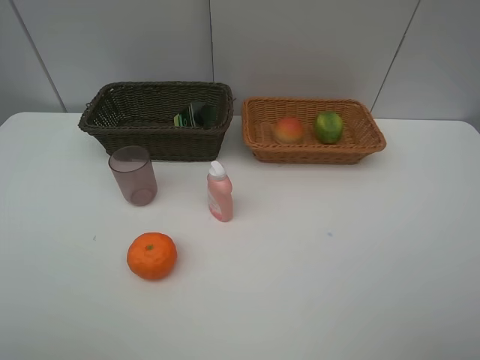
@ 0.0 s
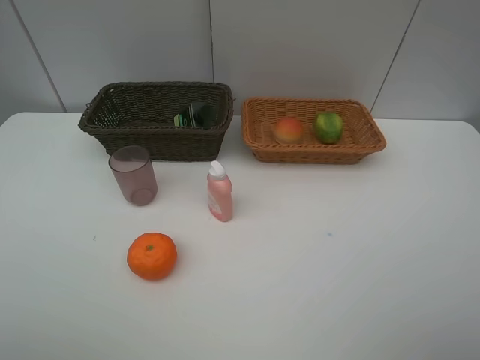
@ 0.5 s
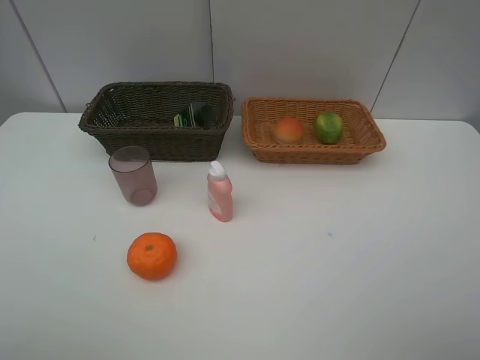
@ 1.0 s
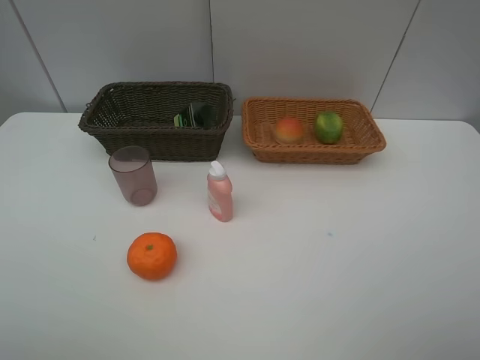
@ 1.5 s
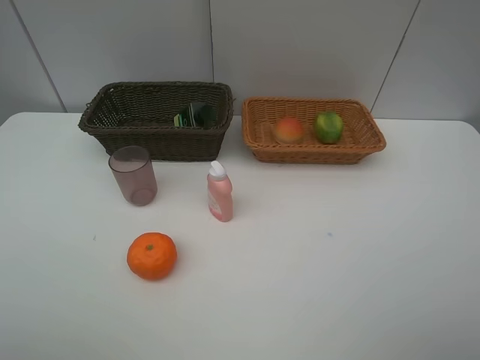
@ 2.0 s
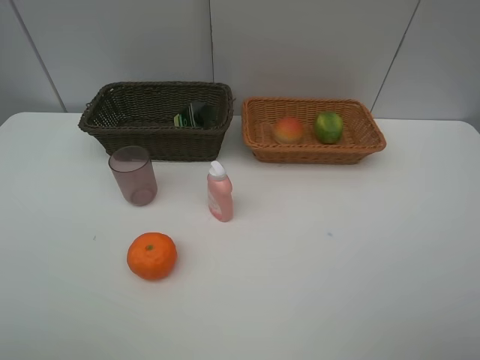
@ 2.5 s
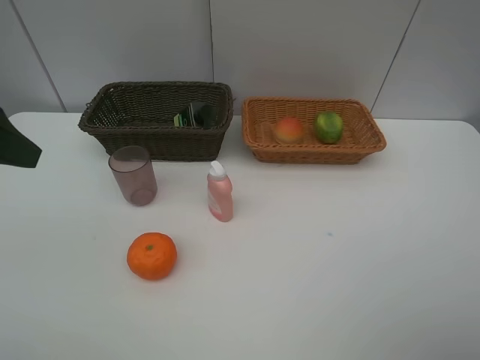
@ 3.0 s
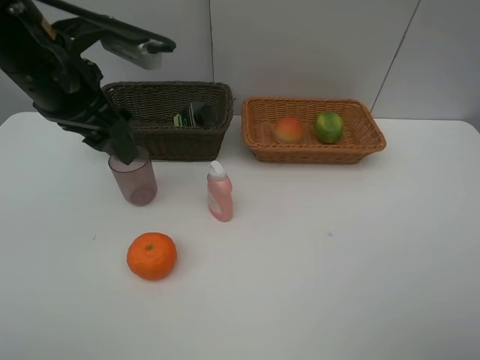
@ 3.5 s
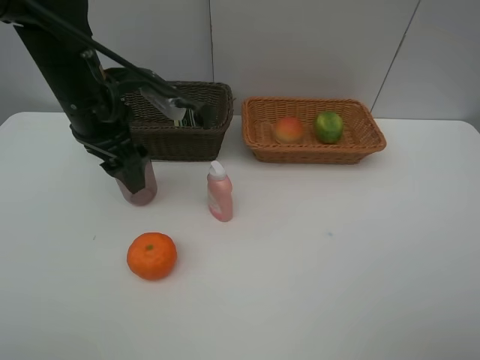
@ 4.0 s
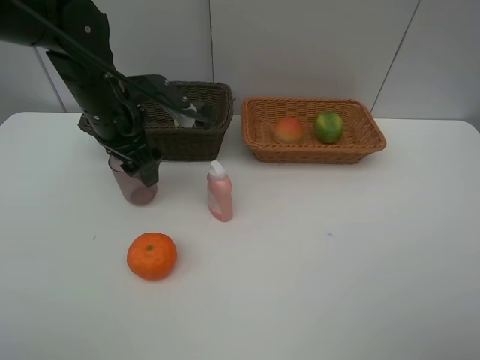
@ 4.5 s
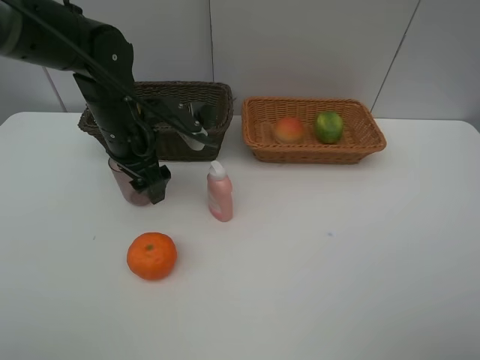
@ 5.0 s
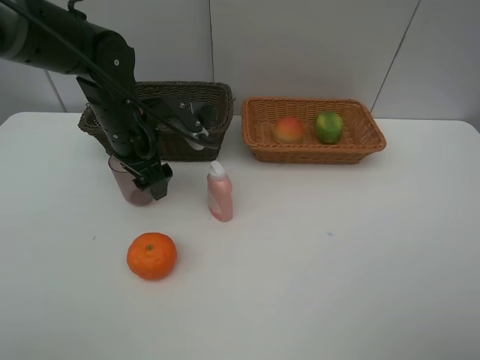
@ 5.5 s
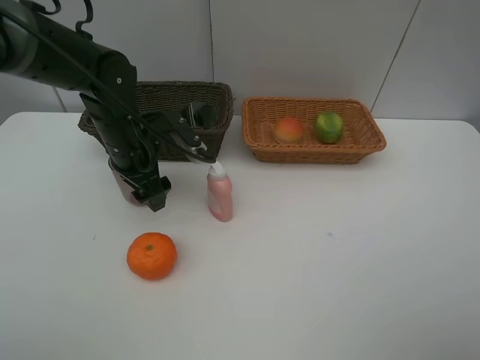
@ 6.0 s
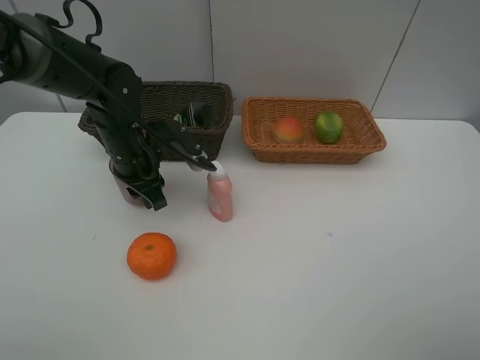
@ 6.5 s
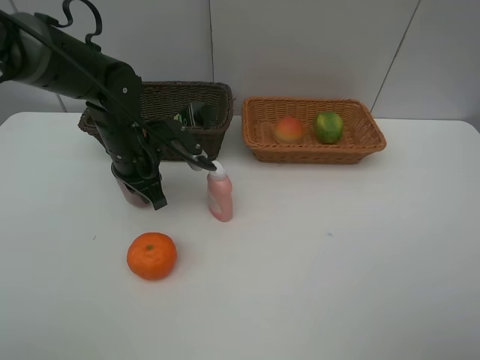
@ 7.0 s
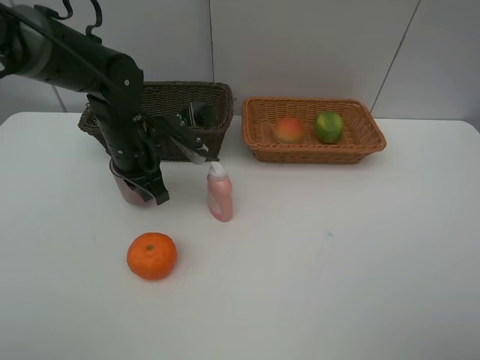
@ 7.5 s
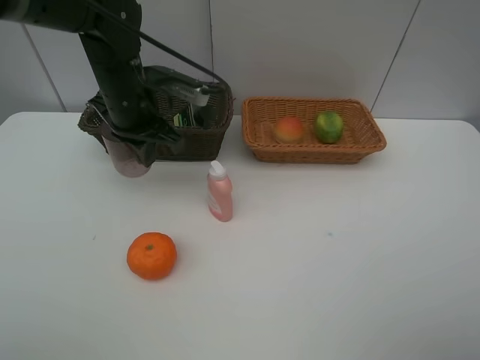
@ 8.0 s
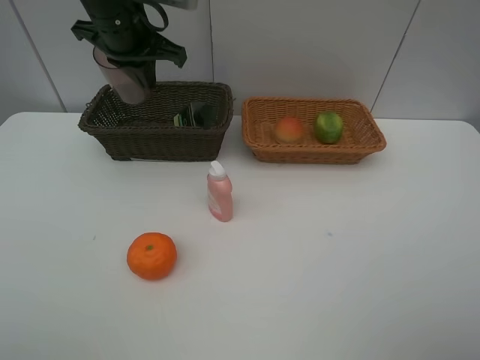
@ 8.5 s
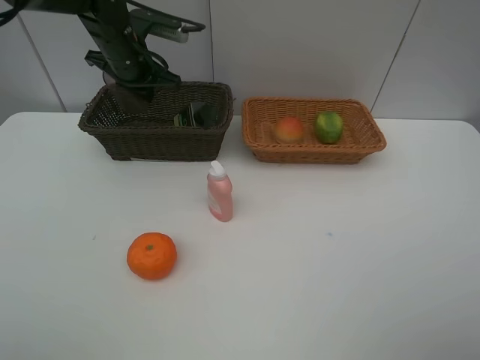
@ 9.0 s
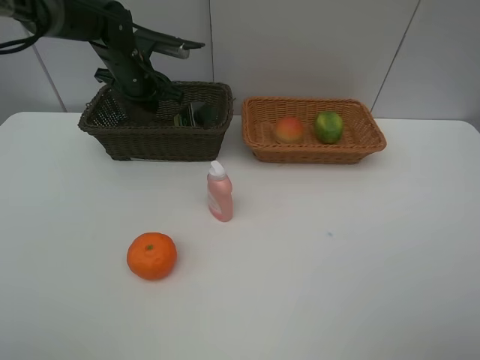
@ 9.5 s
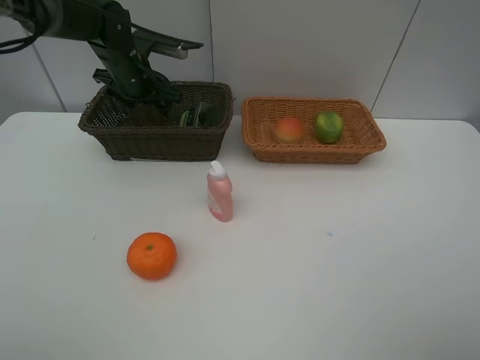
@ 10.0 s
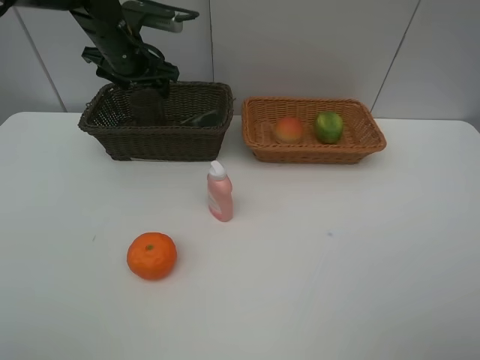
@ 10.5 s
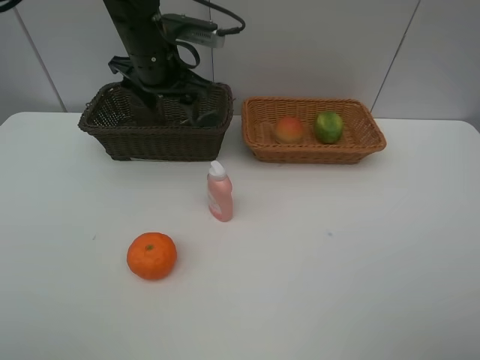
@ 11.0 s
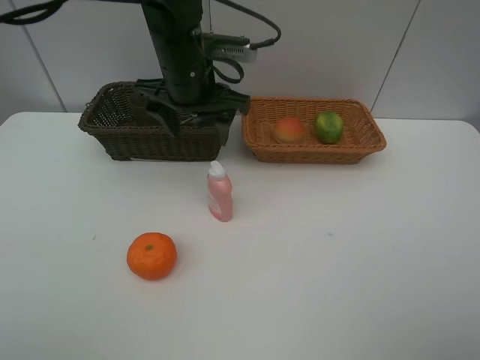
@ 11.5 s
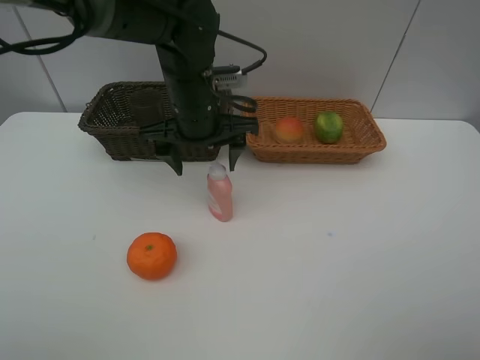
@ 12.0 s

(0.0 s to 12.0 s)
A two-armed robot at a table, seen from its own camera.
Task of the whole recording: place multiple objects separately in different baskets.
2.0 s - 4.0 s: The left gripper moves forward and to the right, approximately 35 cm.
4.0 s - 6.0 s: The left gripper is displaced downward by about 10 cm.
6.0 s - 8.0 s: The left gripper goes roughly 5 cm upward, and closes up.
8.0 s - 10.0 s: The left gripper heads forward, covering approximately 10 cm, and opens up.
10.0 s - 12.0 s: The left gripper is displaced backward and to the right by some 20 cm.

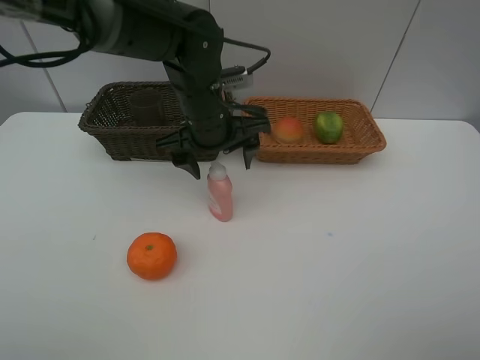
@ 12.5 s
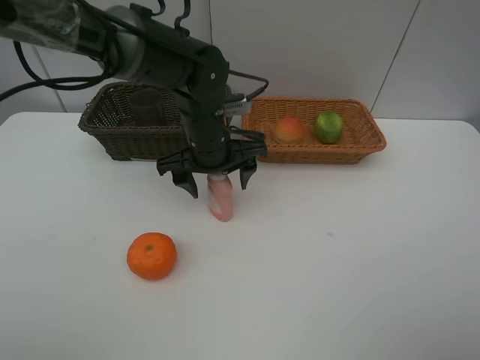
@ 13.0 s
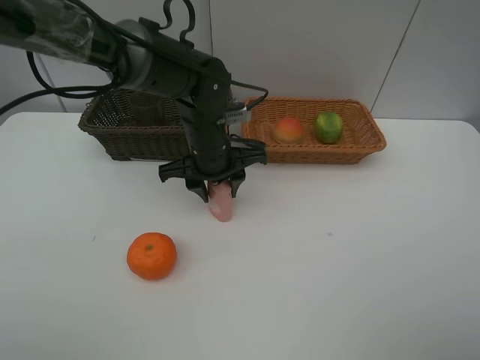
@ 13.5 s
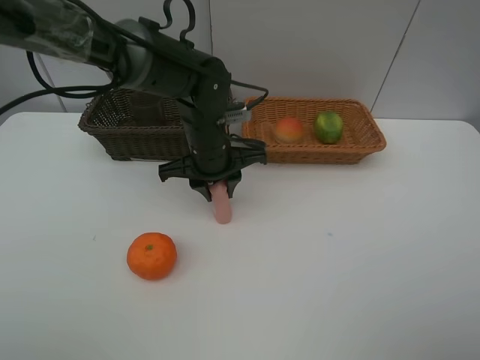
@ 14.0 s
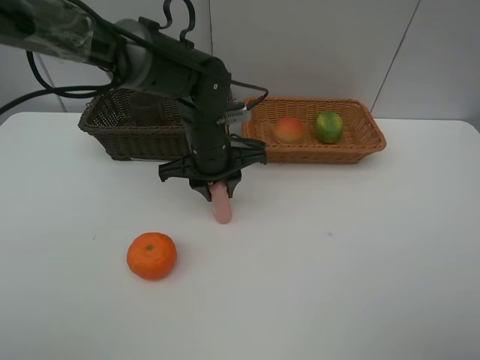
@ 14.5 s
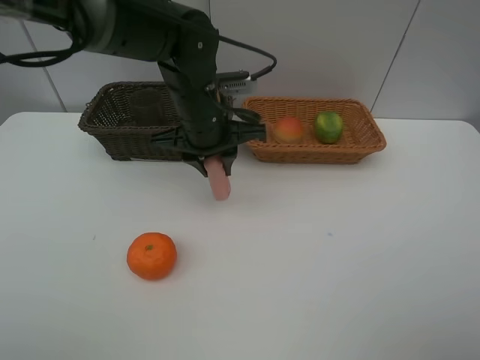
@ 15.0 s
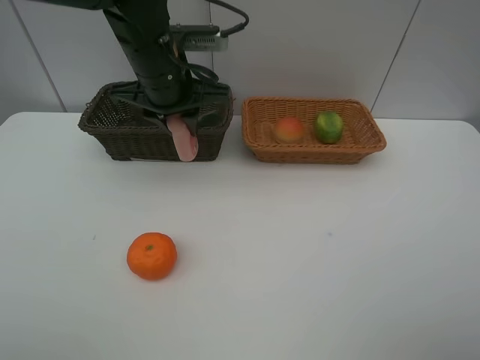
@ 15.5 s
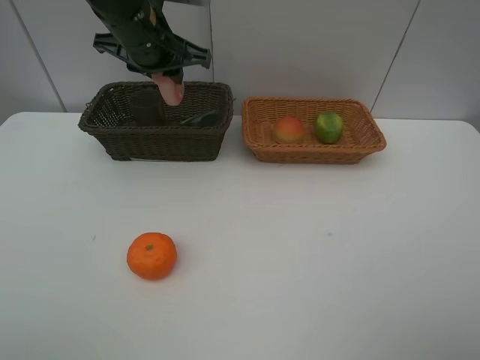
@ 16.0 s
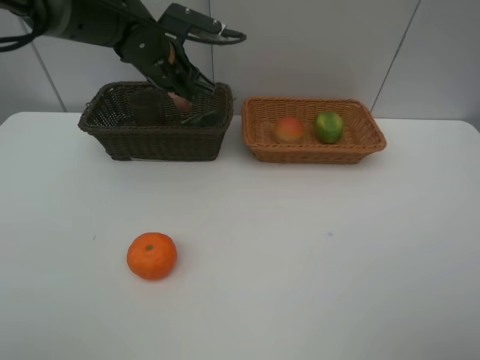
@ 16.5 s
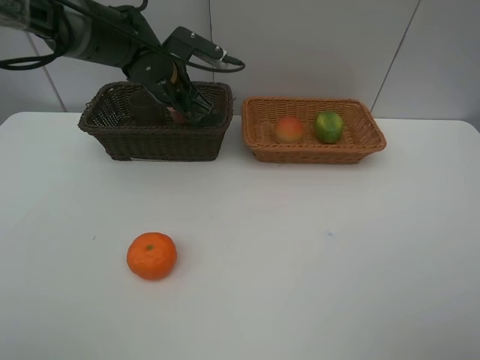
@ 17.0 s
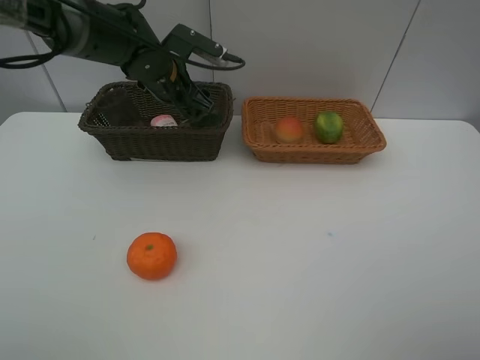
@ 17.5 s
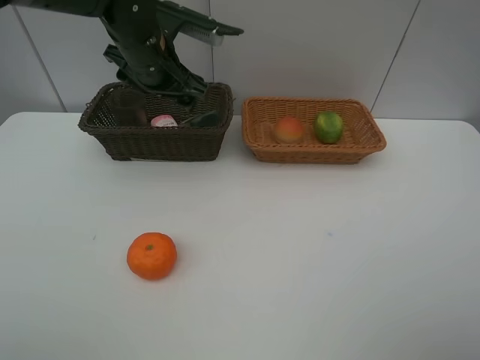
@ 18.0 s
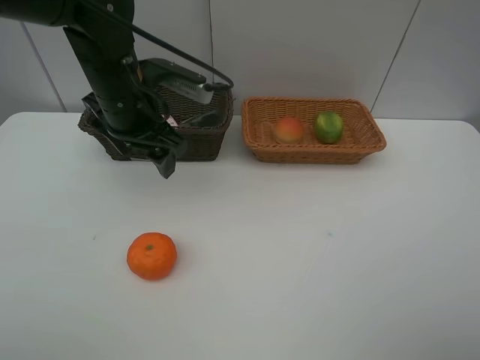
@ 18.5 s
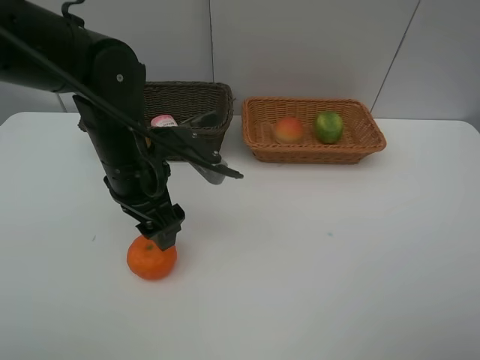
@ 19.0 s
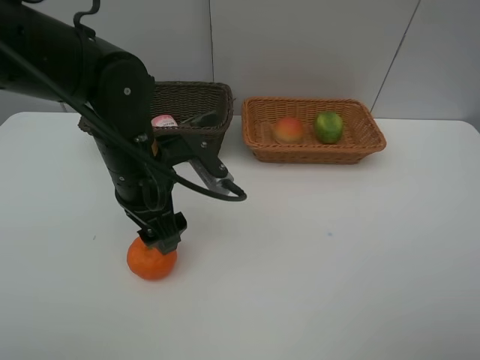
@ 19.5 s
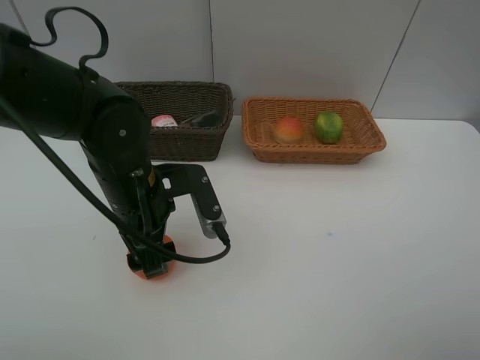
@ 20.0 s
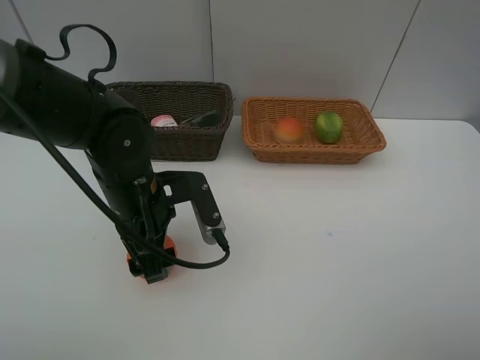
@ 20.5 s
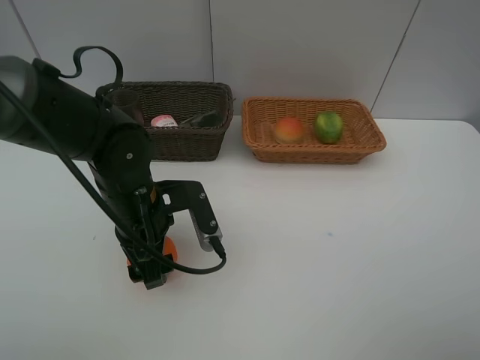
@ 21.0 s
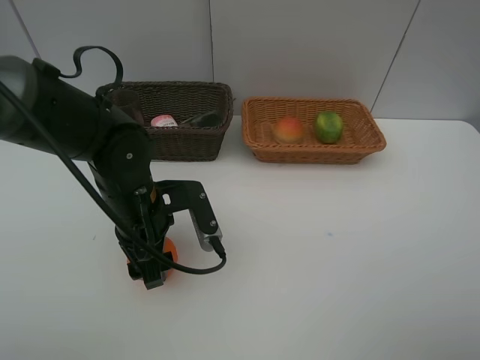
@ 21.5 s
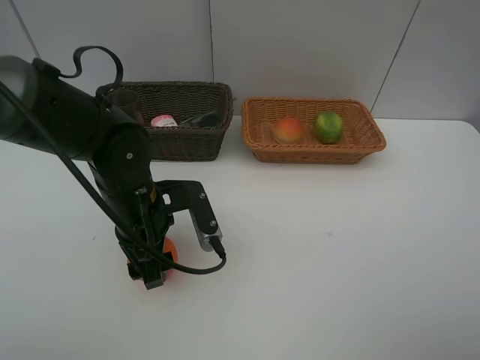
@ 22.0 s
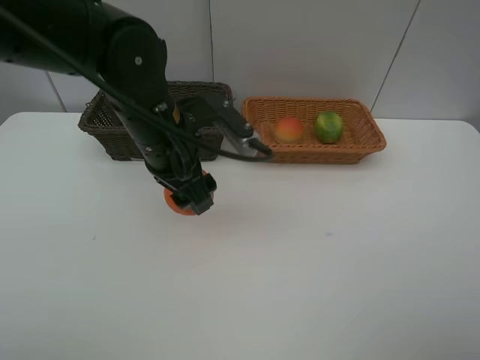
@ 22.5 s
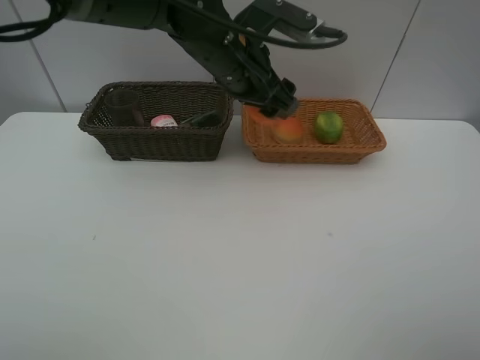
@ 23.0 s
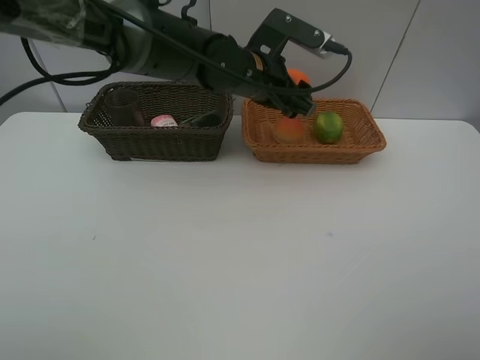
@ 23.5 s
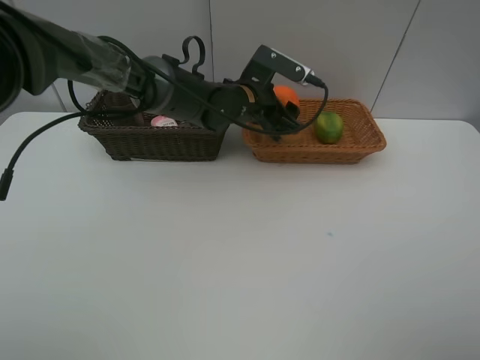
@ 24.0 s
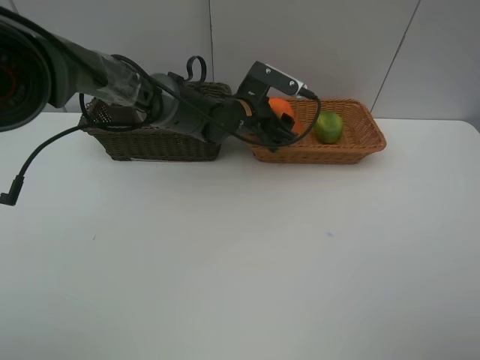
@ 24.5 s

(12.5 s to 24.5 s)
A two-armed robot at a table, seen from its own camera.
Task of the whole recording: place multiple objects separately in different baskets.
12.5 s - 14.5 s: The left gripper closes.
14.5 s - 16.5 s: The left gripper shifts approximately 15 cm forward, to the left and upward.
16.5 s - 18.5 s: The left gripper is displaced backward by roughly 10 cm, and opens.
18.5 s - 20.5 s: The left gripper moves backward and downward, approximately 10 cm.
20.5 s - 22.5 s: The left gripper shifts some 10 cm upward.
22.5 s - 24.5 s: The left gripper travels forward, downward and to the right by roughly 20 cm.

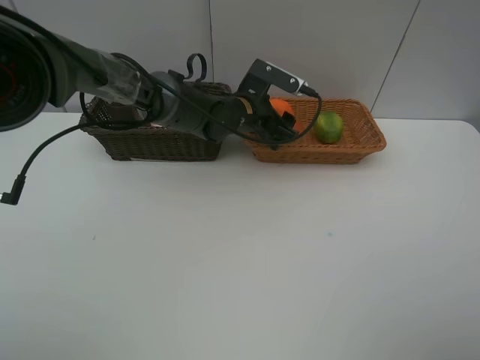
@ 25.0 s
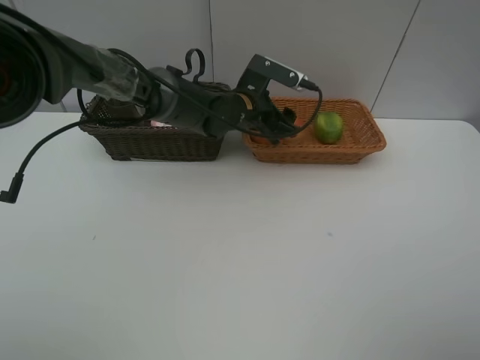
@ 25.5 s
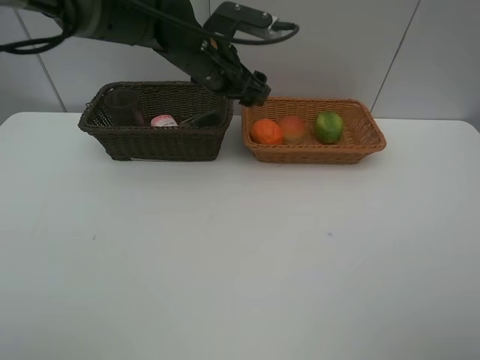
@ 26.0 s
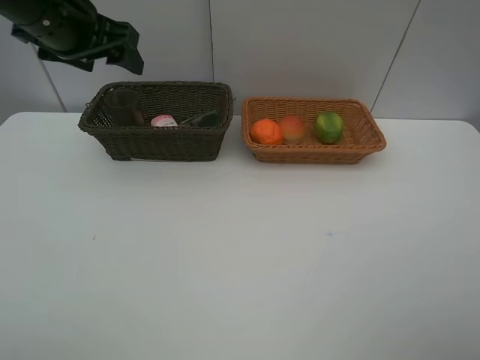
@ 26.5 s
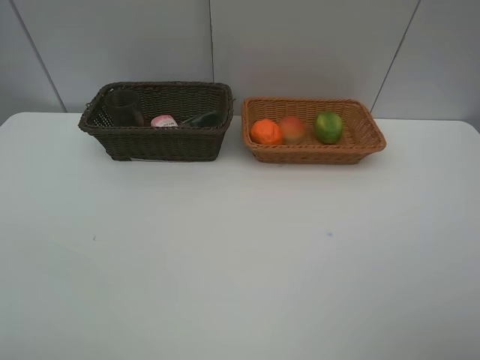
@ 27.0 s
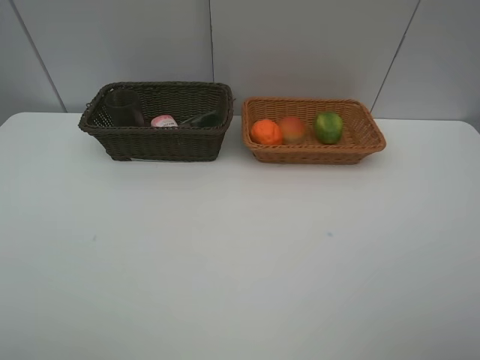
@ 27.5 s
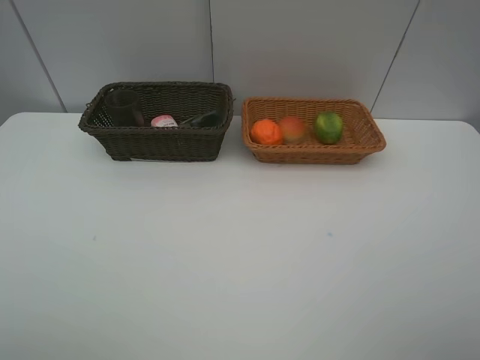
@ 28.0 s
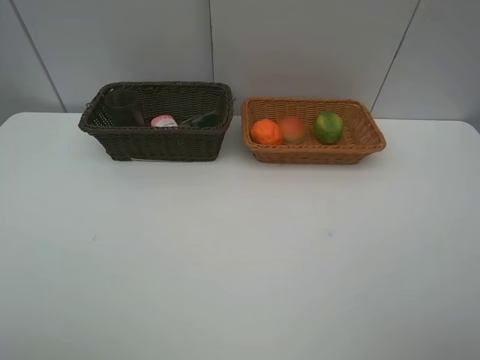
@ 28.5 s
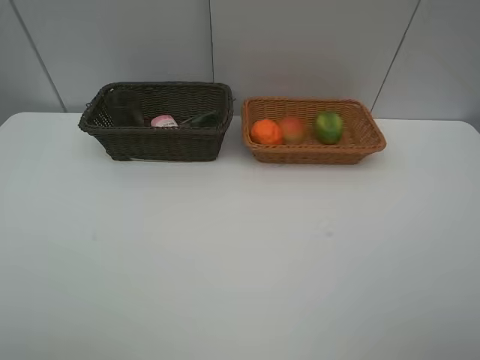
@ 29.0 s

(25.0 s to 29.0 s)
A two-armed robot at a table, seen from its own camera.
Task of the whole recording: place multiple objects separately in different baskets.
25.0 s - 27.0 s: The left gripper heads to the left, backward and upward, covering roughly 50 cm.
